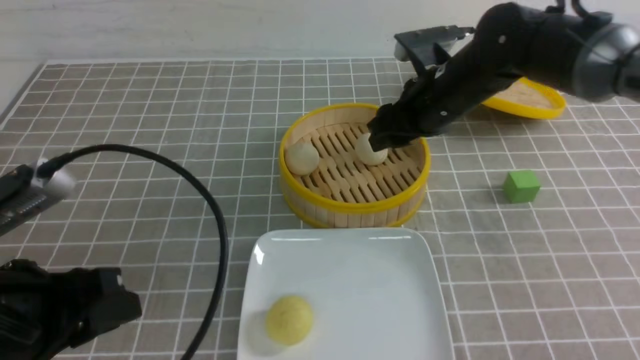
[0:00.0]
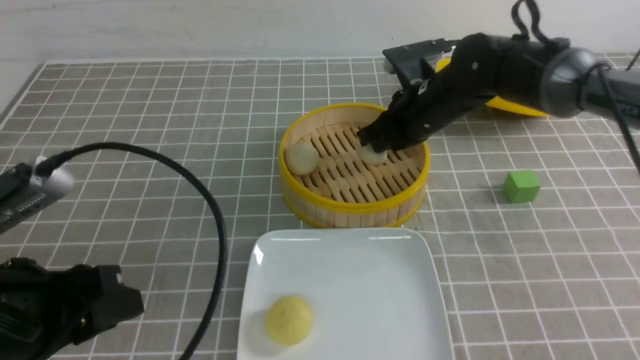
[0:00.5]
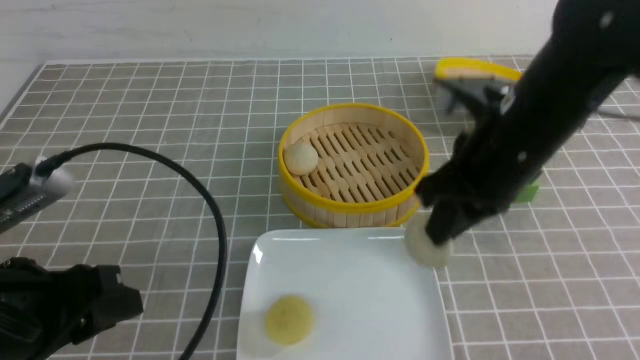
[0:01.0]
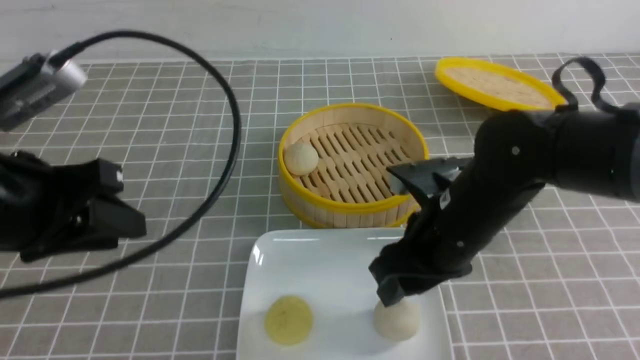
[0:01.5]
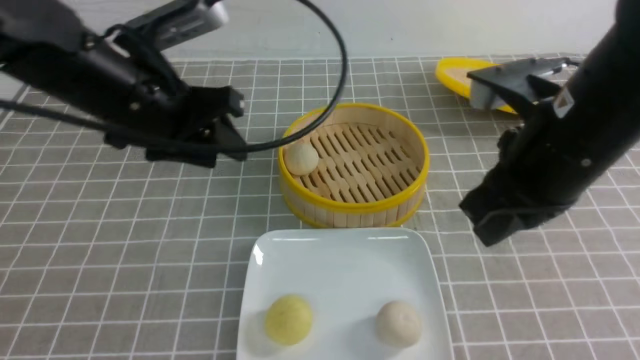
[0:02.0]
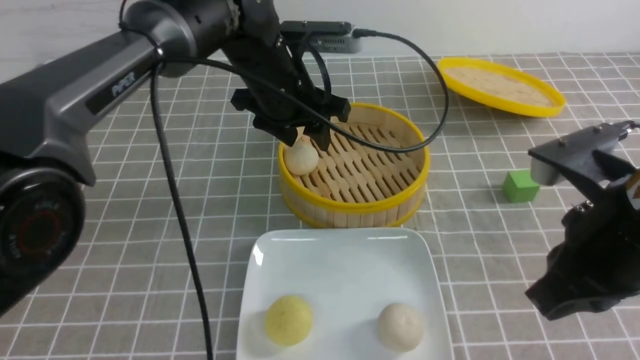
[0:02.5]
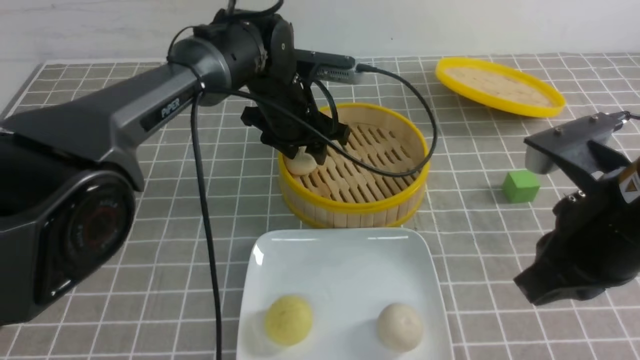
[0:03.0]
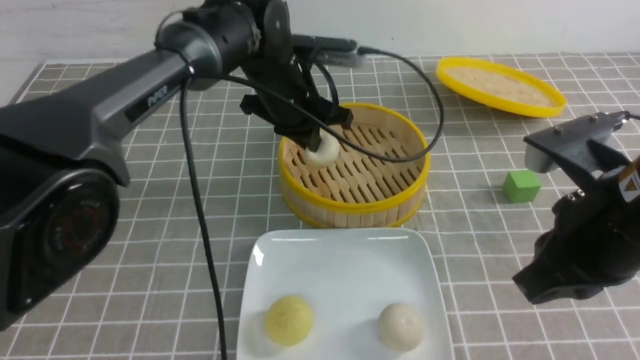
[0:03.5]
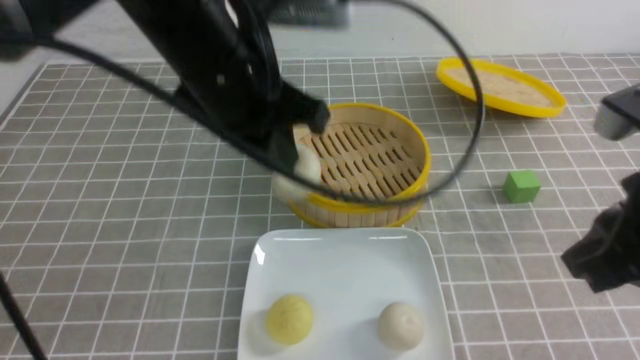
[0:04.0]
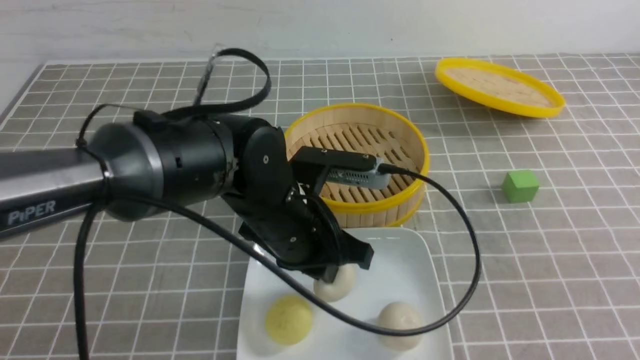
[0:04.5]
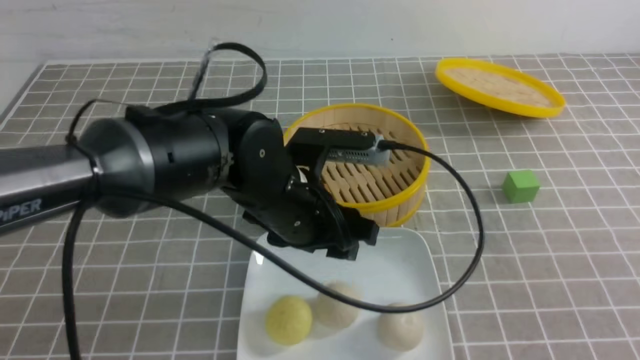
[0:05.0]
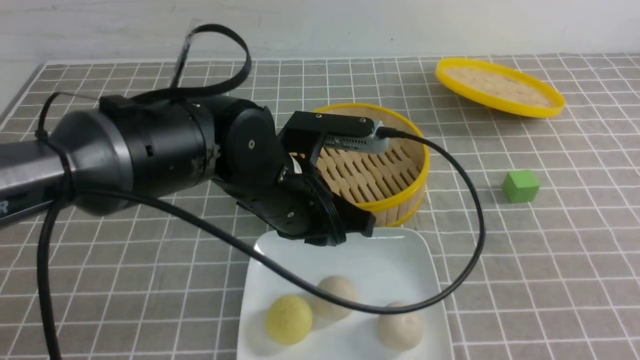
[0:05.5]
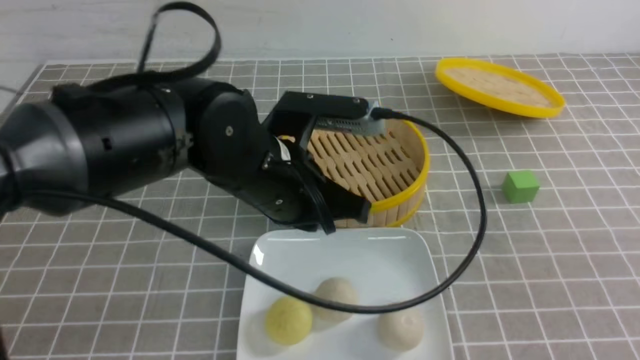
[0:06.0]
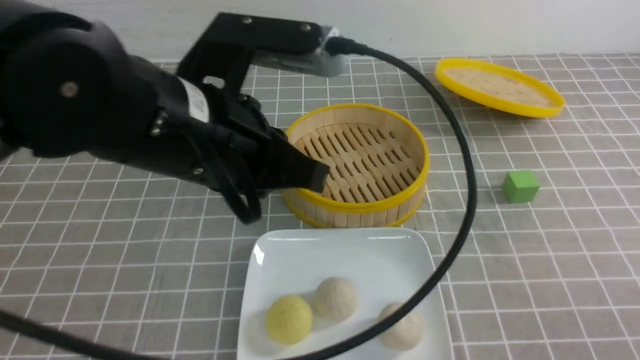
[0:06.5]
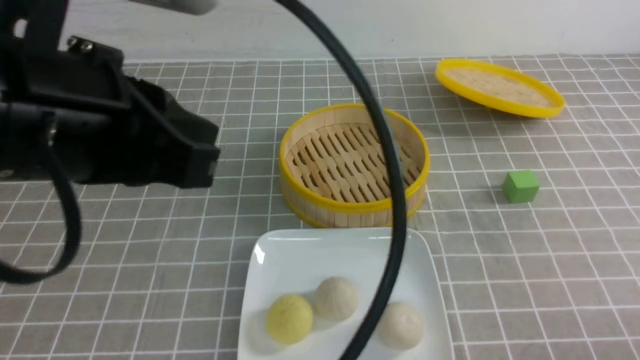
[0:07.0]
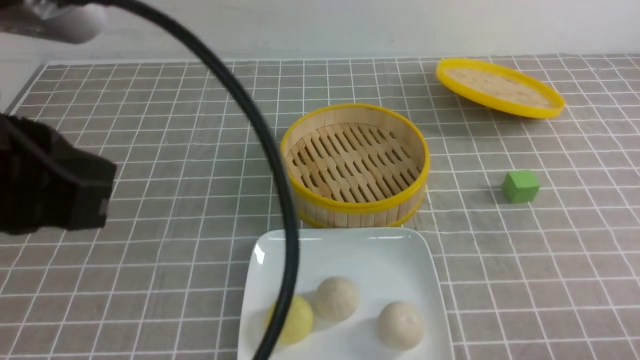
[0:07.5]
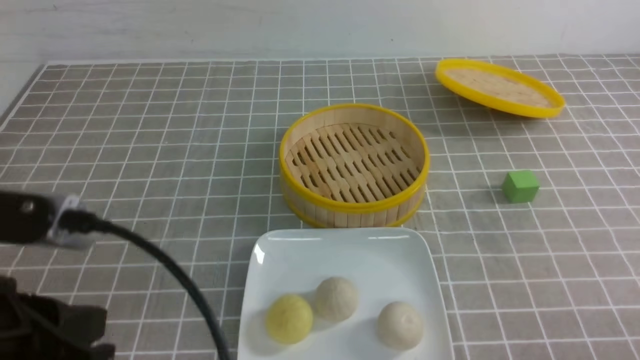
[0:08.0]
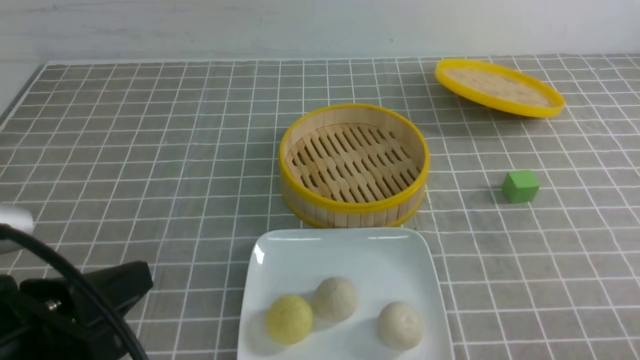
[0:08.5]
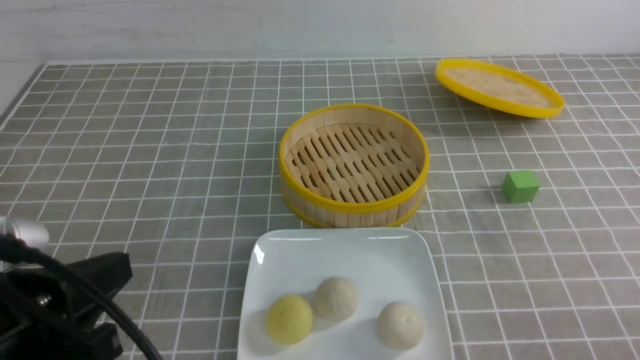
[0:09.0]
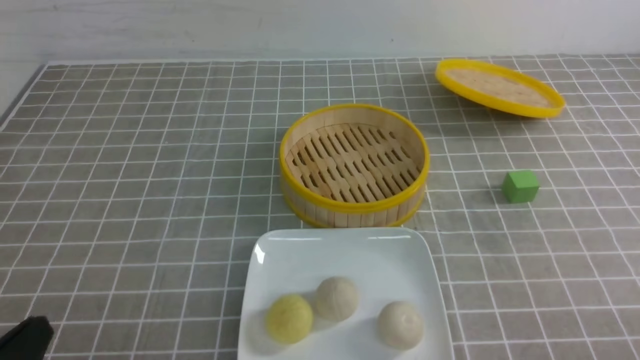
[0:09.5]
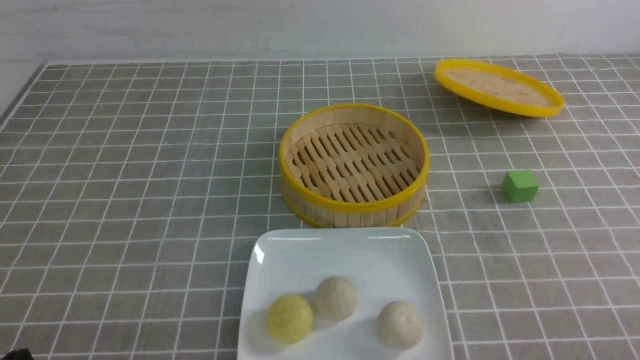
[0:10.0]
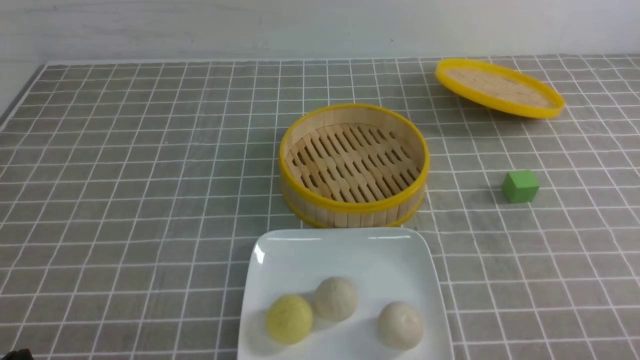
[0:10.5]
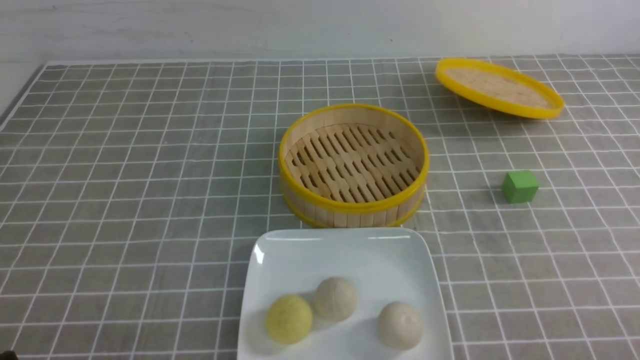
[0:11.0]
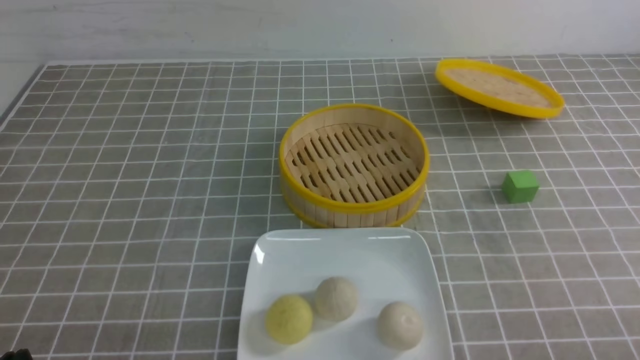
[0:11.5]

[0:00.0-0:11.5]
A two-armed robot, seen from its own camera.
Step, 0:02.0 to 0:03.0: use the left arm to grab the steamed stuffed bun that is closest to it.
Step, 0:03.5 to 0:04.5: use the left arm to put the steamed stuffed bun into the plate.
0:00.0 to 0:02.0: The right gripper heads backward and upward, covering approximately 20 cm, and closes its fingers; the left gripper shifts approximately 20 cm forward and to the right.
0:02.0 to 0:04.0: The right gripper is displaced backward and to the right by approximately 10 cm; the left gripper goes some 10 cm to the right, reaches approximately 10 cm forward, then returns, and closes its fingers.
0:04.0 to 0:06.0: The right gripper heads backward, to the right and downward, covering some 15 cm, while the left gripper travels downward by roughly 5 cm, and opens and closes again.
0:06.0 to 0:07.5: The right gripper heads downward, covering approximately 10 cm; the left gripper is displaced backward, to the left and upward by approximately 25 cm.
0:07.5 to 0:09.5: The left gripper goes approximately 20 cm downward.

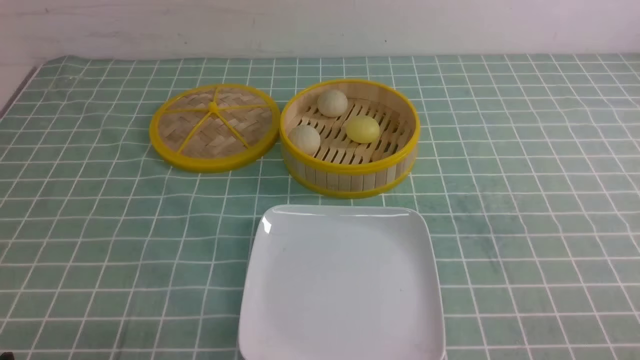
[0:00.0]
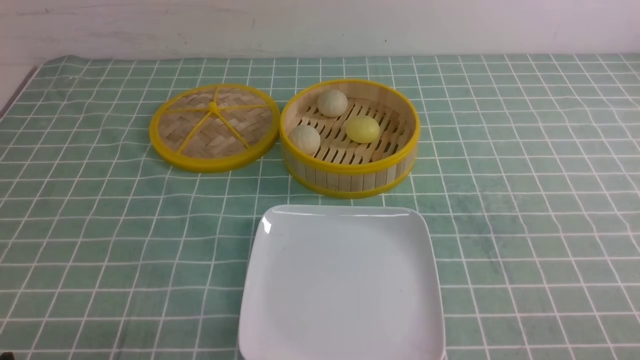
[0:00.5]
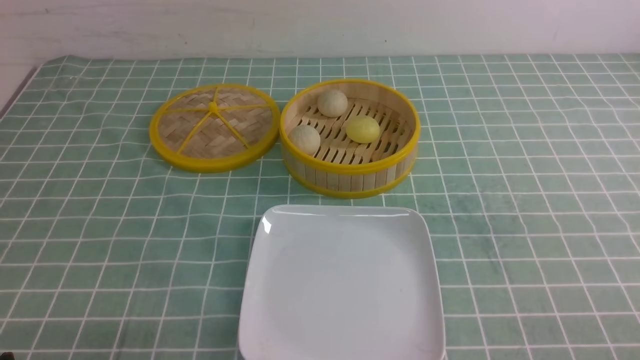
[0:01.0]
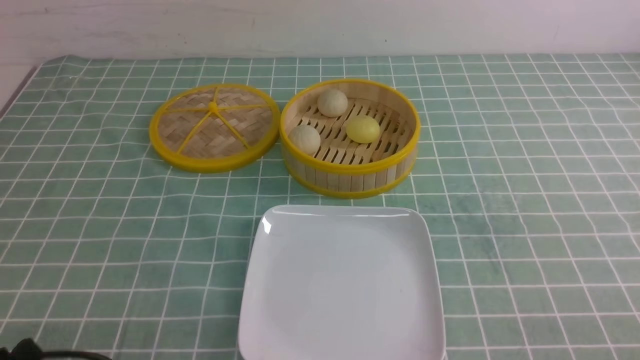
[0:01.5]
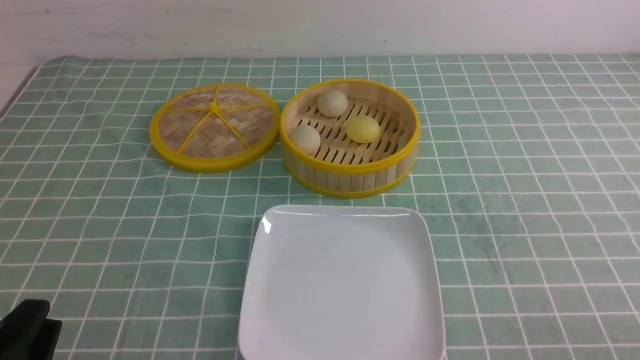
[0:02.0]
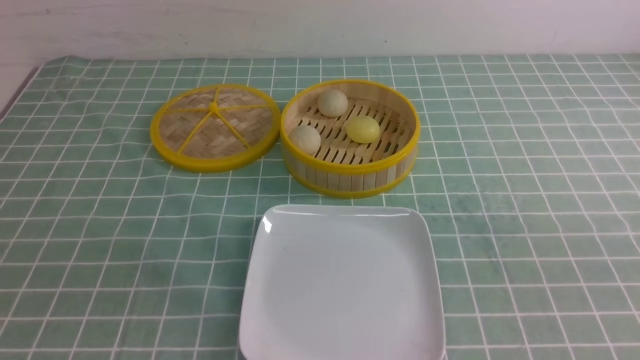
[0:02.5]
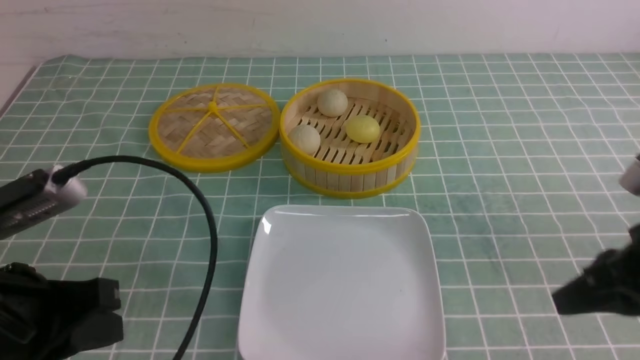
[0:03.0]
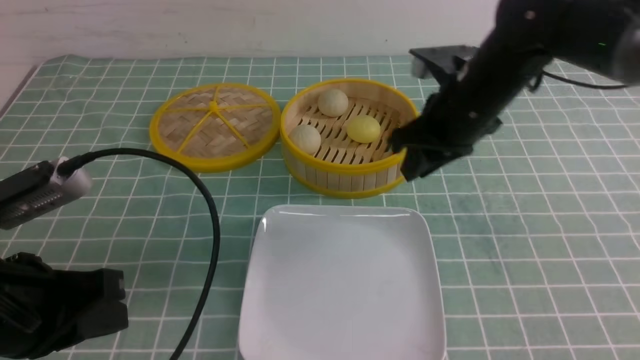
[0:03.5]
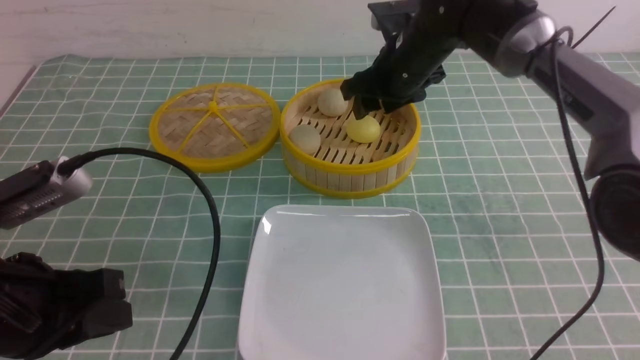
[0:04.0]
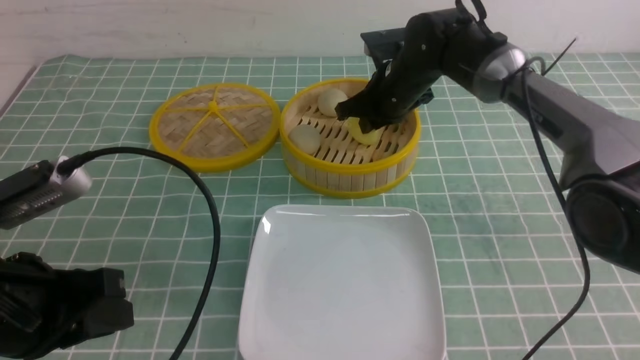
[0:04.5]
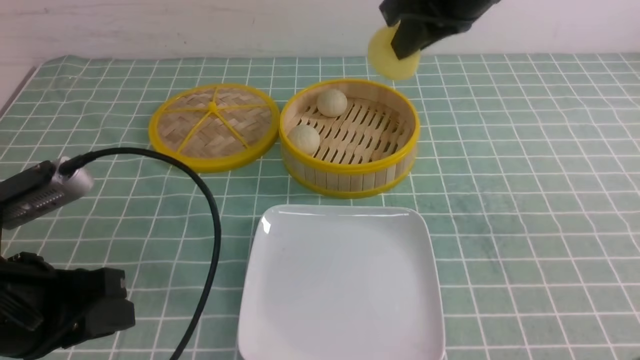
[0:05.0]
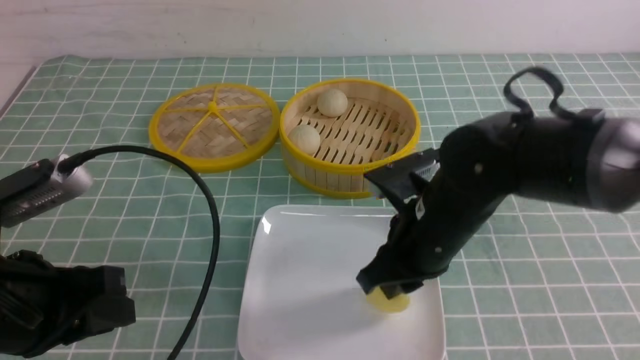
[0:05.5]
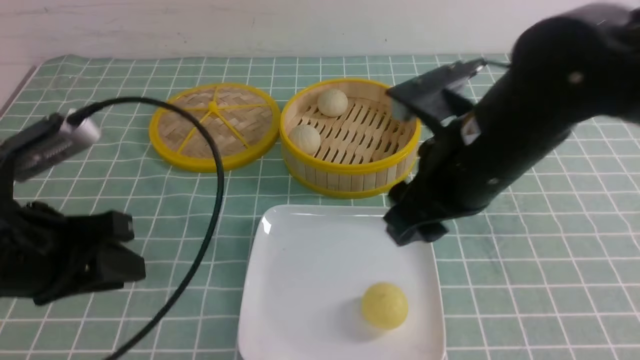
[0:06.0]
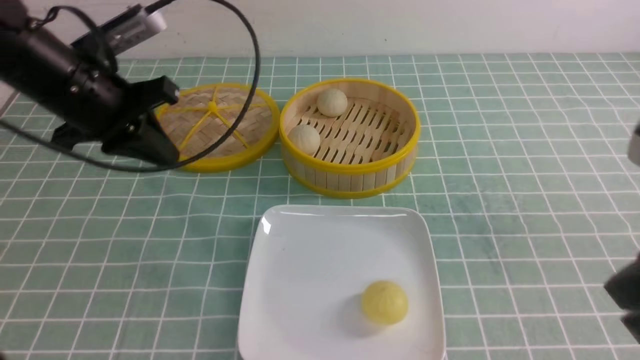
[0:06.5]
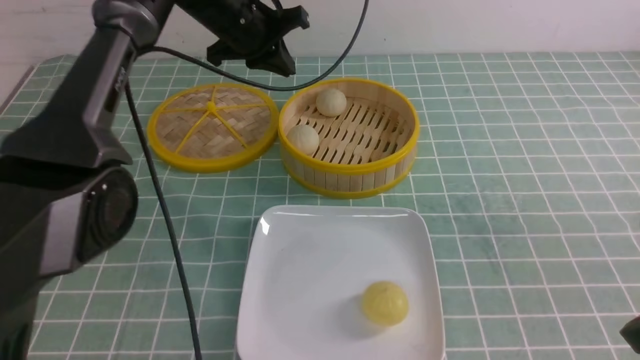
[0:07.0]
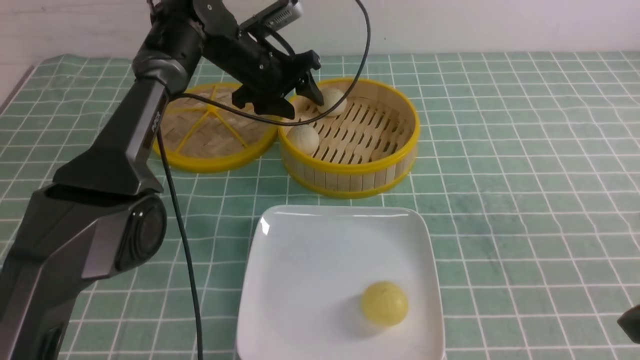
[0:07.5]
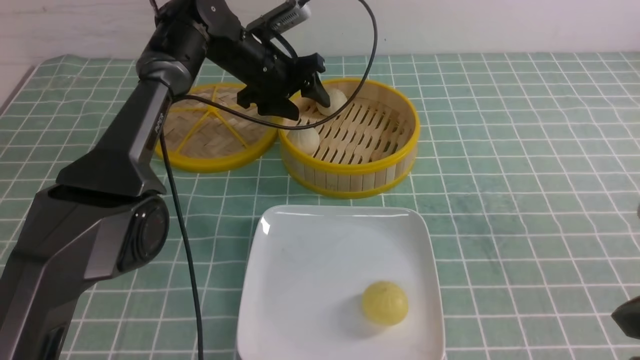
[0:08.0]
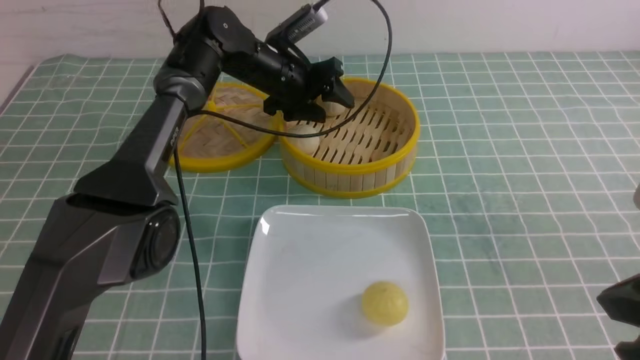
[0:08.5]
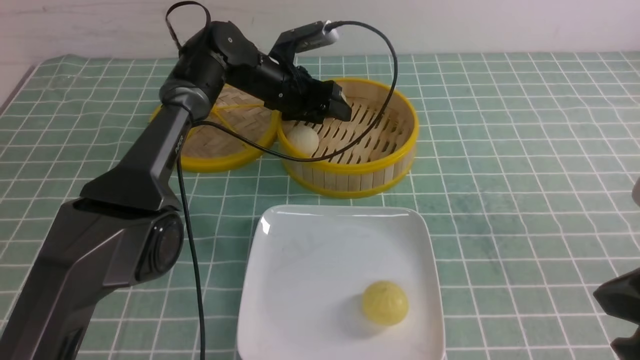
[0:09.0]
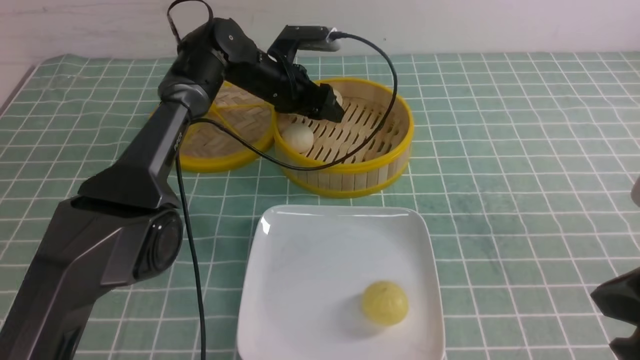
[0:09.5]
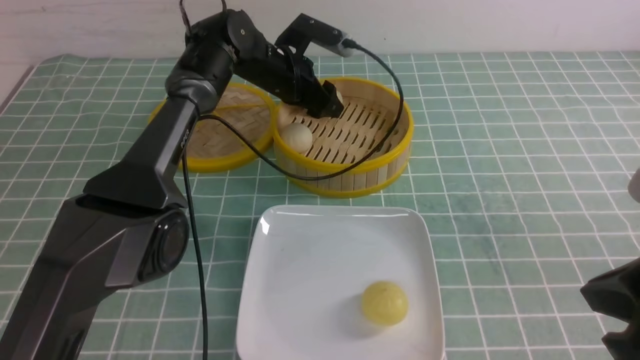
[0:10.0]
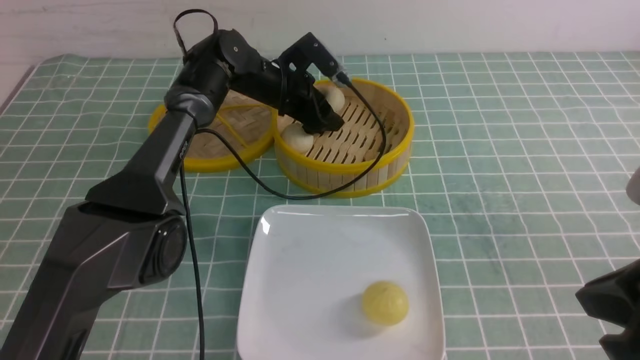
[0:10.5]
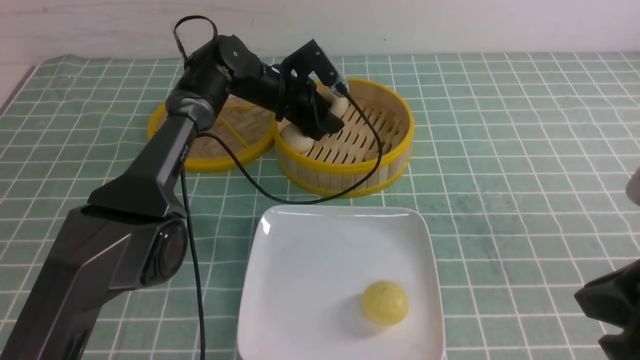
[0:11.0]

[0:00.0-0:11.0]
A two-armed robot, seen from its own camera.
Step, 0:00.0 to 0:04.5: use the right arm to grab the steamed stuffed bun that is closest to it.
Step, 0:05.0 to 0:05.5: use the right arm to put the steamed stuffed bun into the plate.
0:02.0 to 0:03.5: The right gripper travels forward and to the left by roughly 35 cm, and closes, then opens again; the left gripper goes about 10 cm forward and upward.
0:03.5 to 0:05.5: The right gripper shifts approximately 15 cm backward and downward, and closes, then reopens.
0:05.5 to 0:07.5: The right gripper heads backward, to the right and upward, covering approximately 25 cm, and closes up, while the left gripper moves forward, some 40 cm, and opens up.
0:07.5 to 0:09.0: The left gripper changes place by roughly 5 cm.
